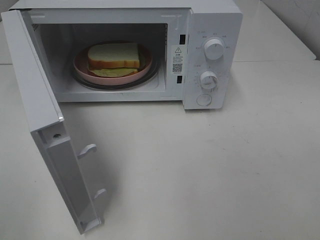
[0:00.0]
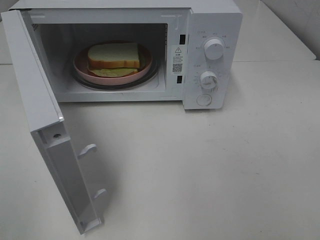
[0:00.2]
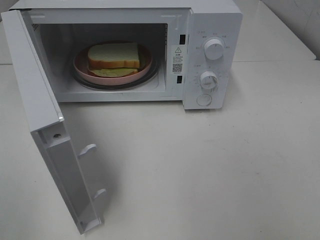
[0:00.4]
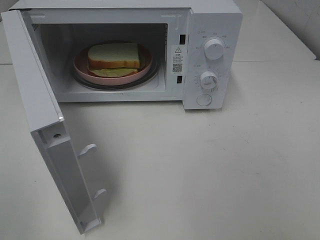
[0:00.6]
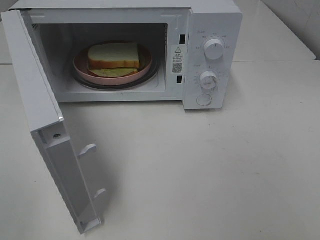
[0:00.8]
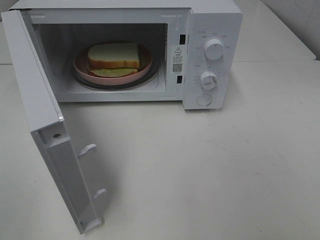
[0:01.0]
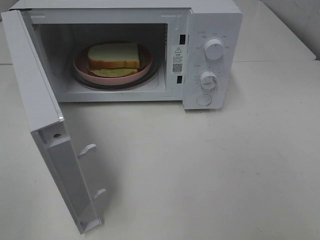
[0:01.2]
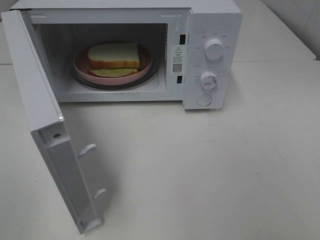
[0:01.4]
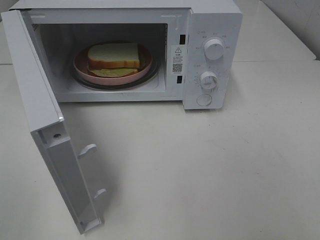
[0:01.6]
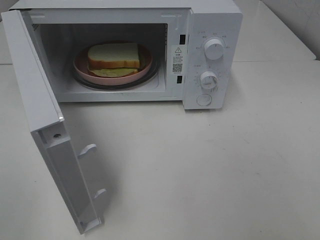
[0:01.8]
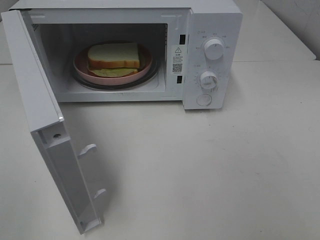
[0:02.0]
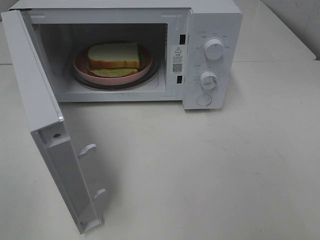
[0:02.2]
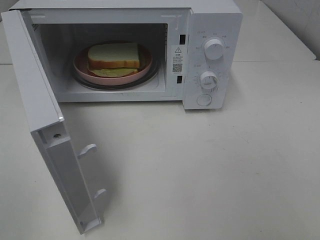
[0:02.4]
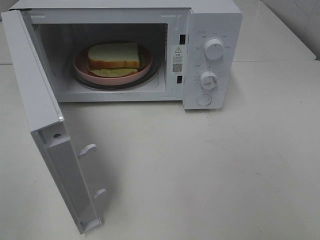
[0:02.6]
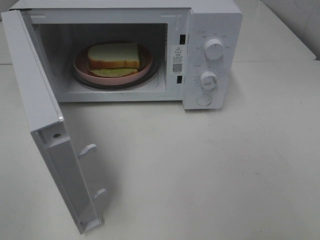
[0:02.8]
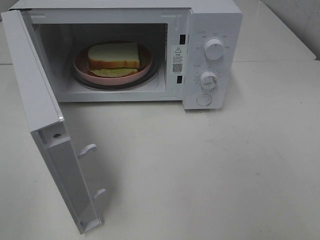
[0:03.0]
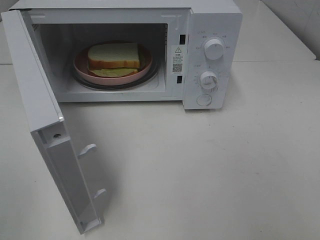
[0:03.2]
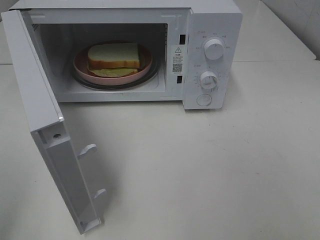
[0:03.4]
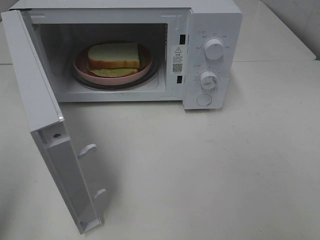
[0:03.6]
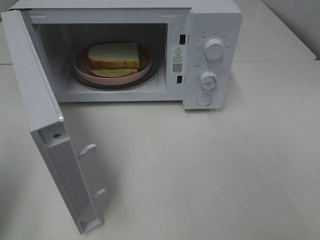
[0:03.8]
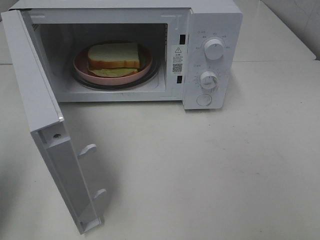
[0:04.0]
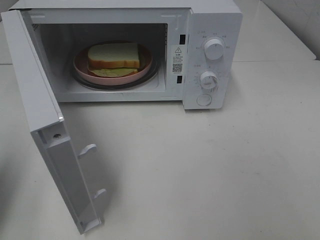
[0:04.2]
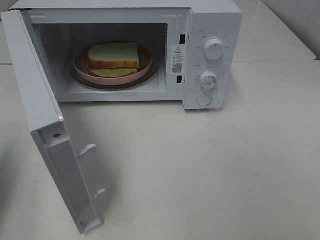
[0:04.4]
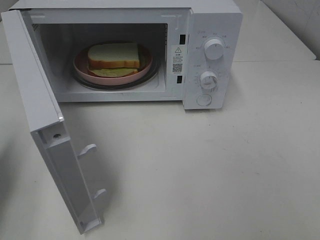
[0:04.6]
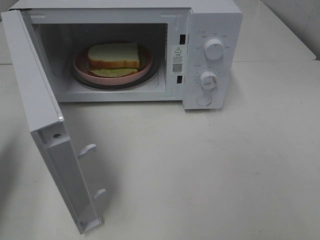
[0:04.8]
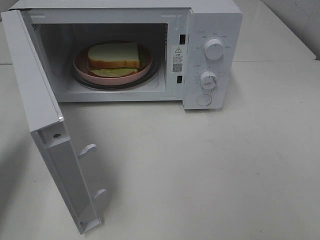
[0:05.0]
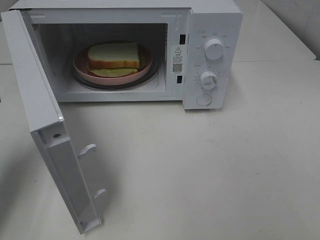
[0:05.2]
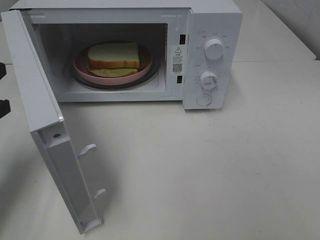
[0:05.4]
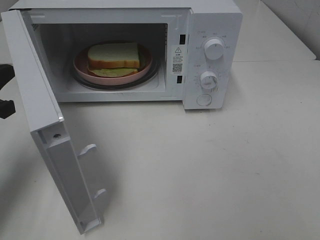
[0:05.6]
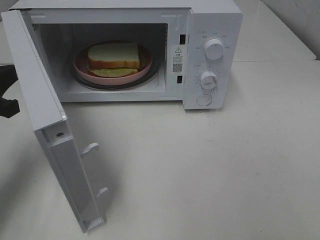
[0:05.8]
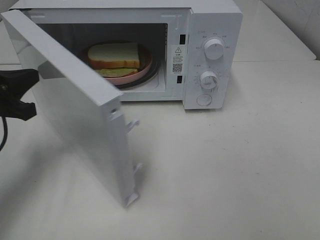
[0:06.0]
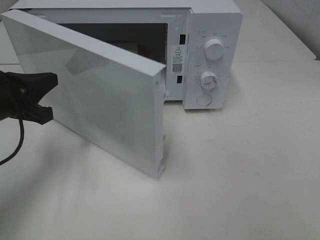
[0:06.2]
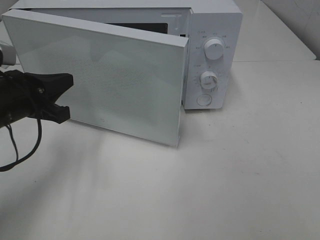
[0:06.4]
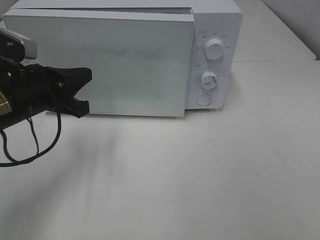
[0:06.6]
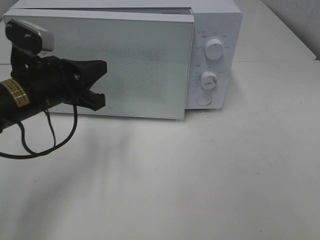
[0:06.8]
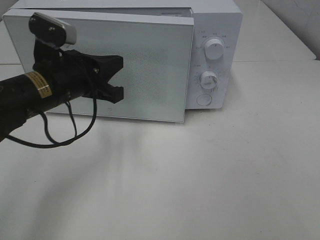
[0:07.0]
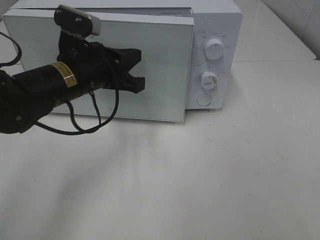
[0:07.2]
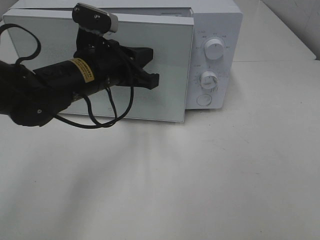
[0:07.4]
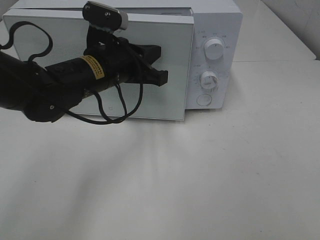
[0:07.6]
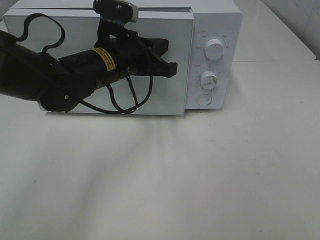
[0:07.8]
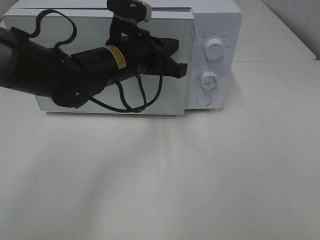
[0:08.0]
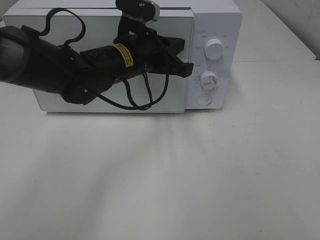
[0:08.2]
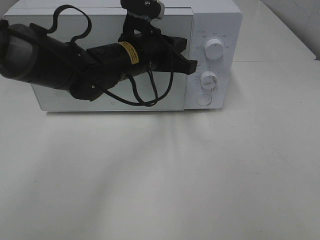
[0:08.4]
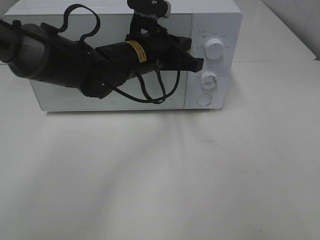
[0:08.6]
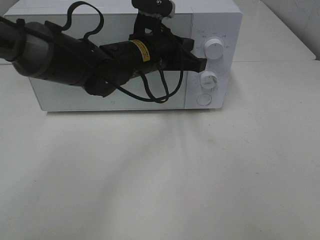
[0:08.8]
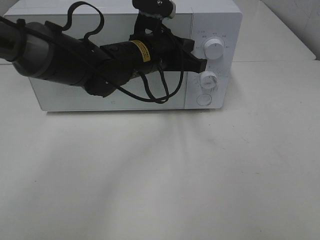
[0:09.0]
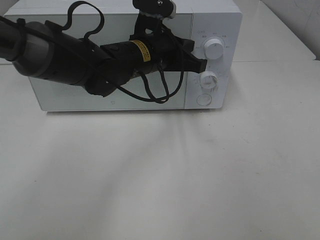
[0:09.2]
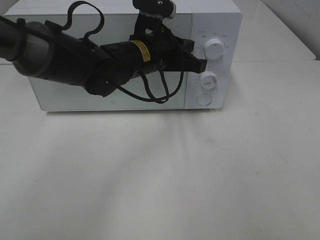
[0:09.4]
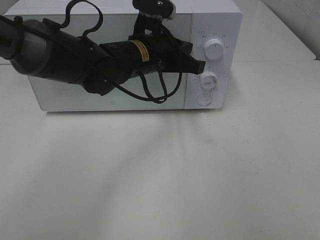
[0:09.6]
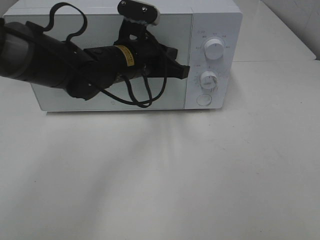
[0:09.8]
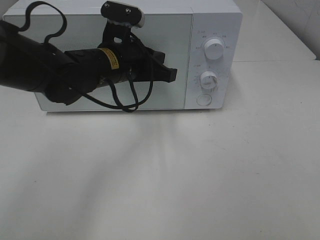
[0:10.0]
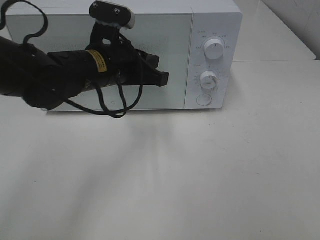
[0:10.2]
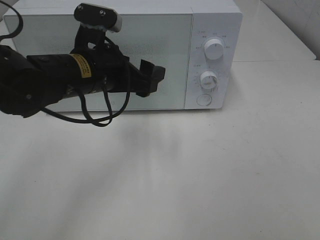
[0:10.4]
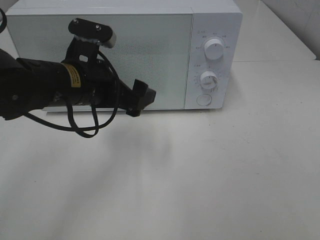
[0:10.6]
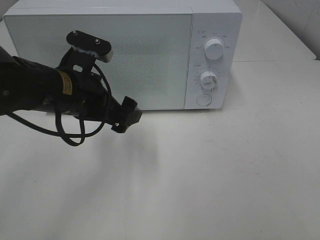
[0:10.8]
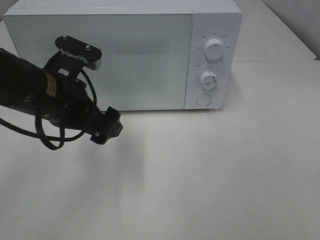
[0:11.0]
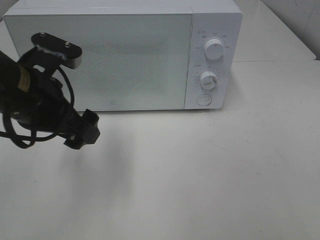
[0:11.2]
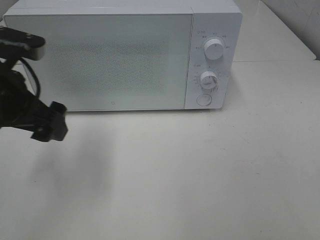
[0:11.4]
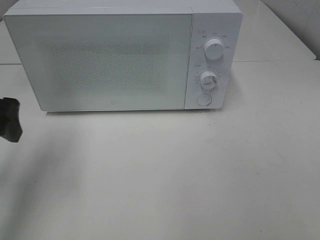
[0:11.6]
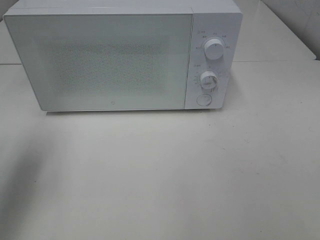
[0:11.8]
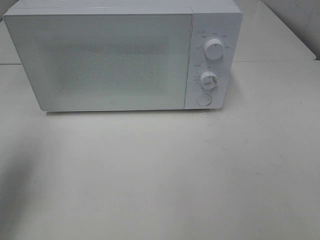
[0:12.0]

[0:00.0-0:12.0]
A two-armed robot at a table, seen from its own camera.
Task of the whole recording: Heat Sandwich.
Step, 0:00.0 to 0:10.4: Left hand: close the microwave door.
0:01.6 to 0:03.0: Neither gripper changes place.
0:03.0 to 0:04.4: The left gripper travels forward by approximately 20 cm, and closes its fingers.
0:04.4 to 0:06.0: The left gripper shifts some 10 cm forward, to the right and downward.
0:06.0 to 0:07.6: The left gripper moves to the right, approximately 20 cm.
0:07.6 to 0:09.0: The left gripper travels to the right by approximately 5 cm.
0:09.0 to 0:10.4: The left gripper moves to the left and backward, approximately 10 cm, and opens.
0:10.4 to 0:12.0: The left gripper shifts approximately 20 cm to the left and backward.

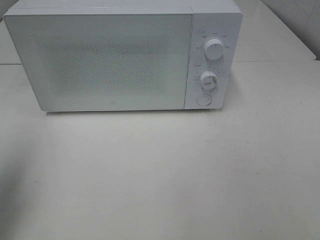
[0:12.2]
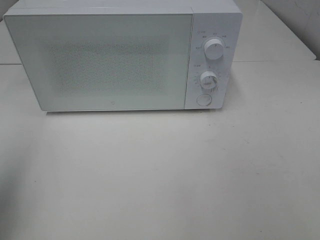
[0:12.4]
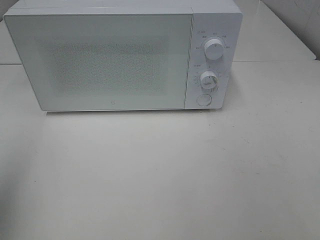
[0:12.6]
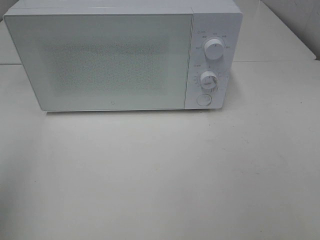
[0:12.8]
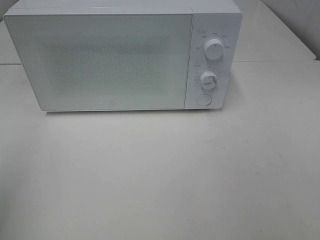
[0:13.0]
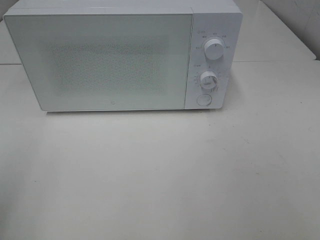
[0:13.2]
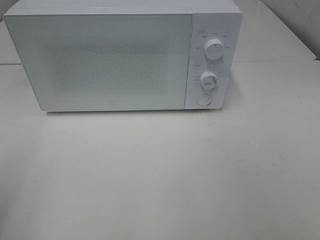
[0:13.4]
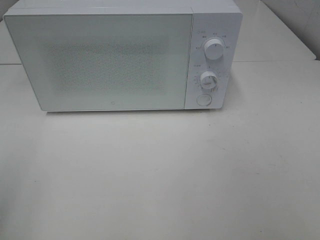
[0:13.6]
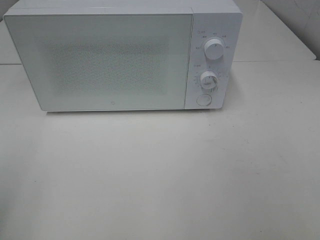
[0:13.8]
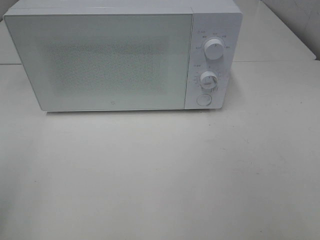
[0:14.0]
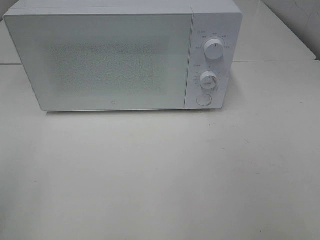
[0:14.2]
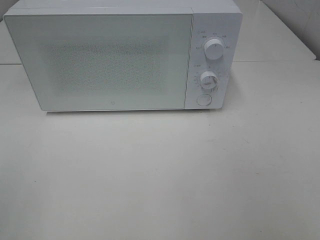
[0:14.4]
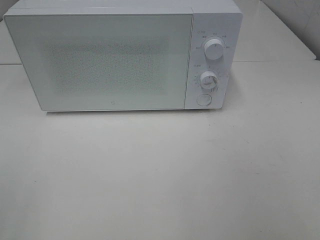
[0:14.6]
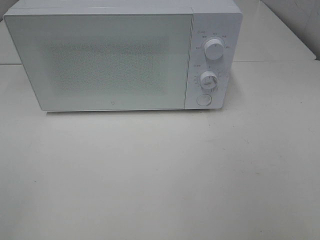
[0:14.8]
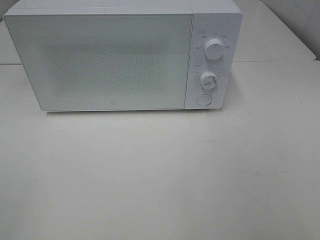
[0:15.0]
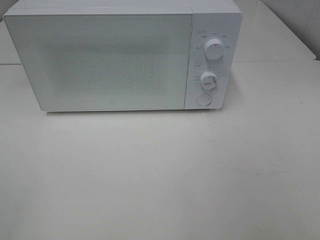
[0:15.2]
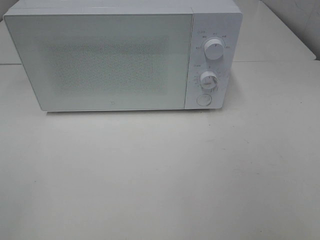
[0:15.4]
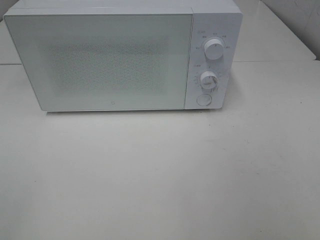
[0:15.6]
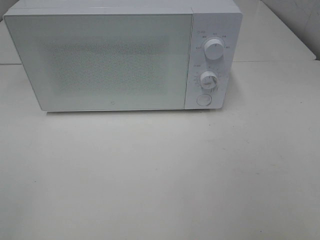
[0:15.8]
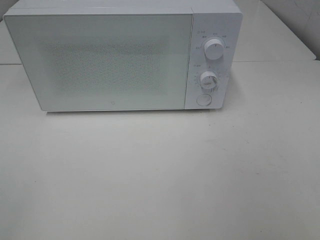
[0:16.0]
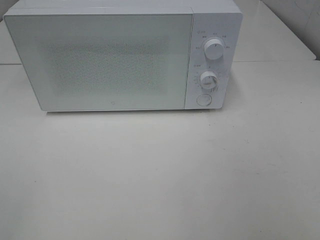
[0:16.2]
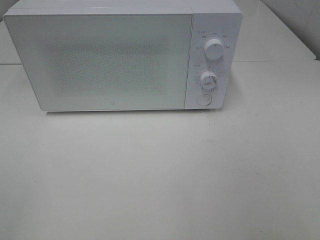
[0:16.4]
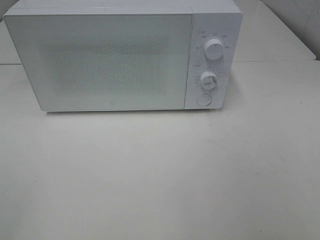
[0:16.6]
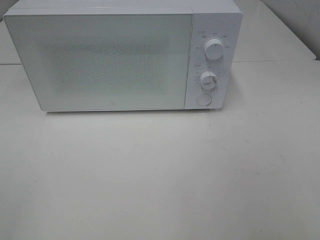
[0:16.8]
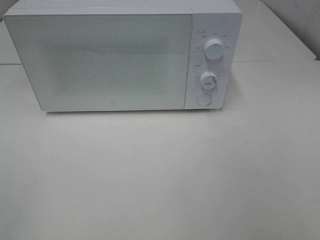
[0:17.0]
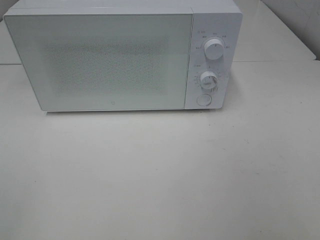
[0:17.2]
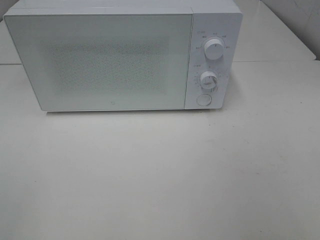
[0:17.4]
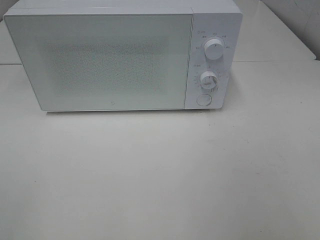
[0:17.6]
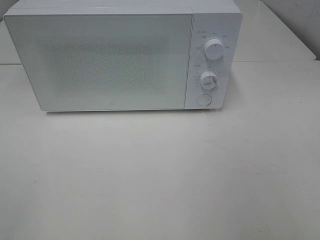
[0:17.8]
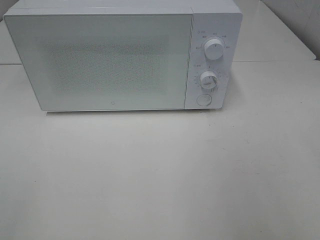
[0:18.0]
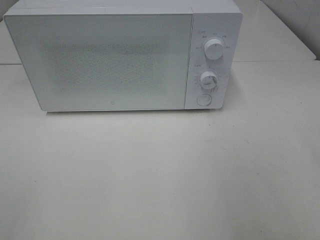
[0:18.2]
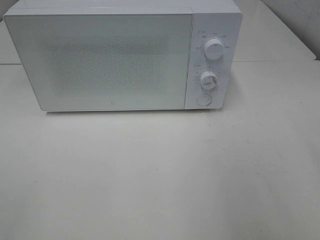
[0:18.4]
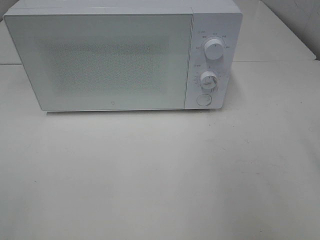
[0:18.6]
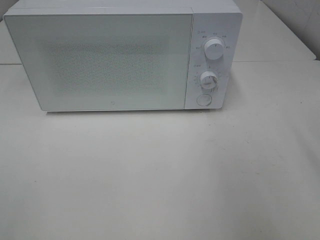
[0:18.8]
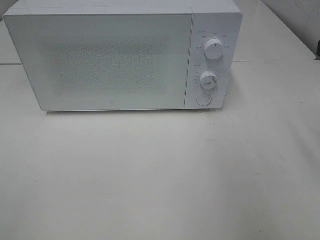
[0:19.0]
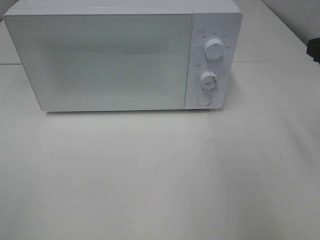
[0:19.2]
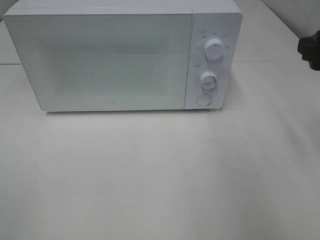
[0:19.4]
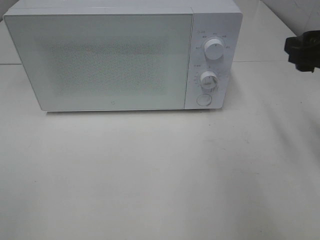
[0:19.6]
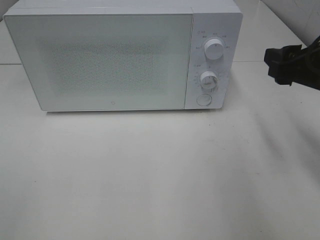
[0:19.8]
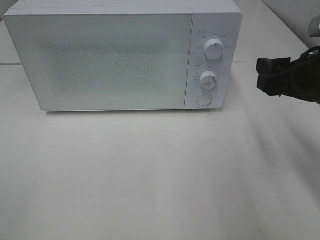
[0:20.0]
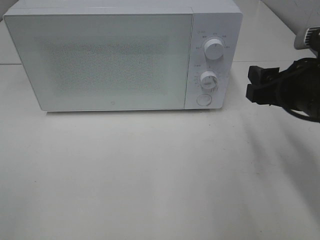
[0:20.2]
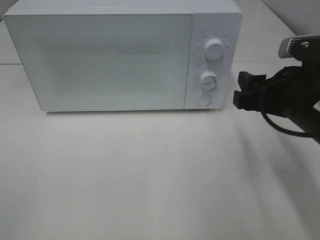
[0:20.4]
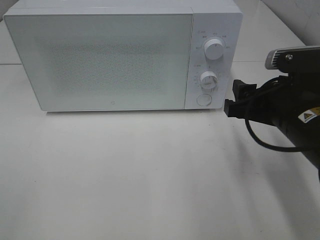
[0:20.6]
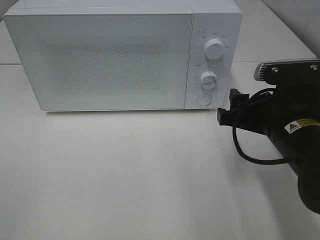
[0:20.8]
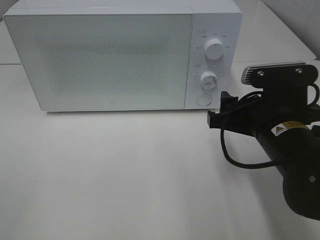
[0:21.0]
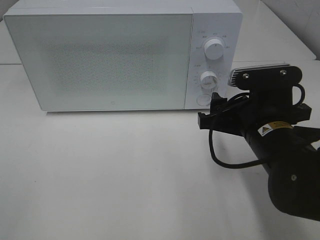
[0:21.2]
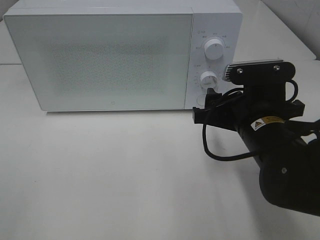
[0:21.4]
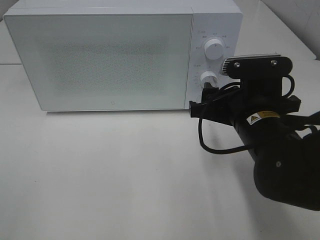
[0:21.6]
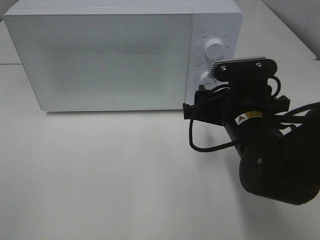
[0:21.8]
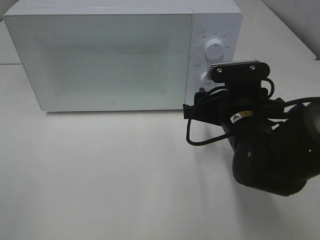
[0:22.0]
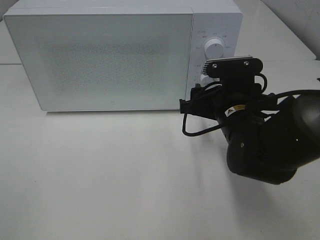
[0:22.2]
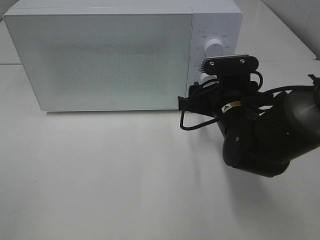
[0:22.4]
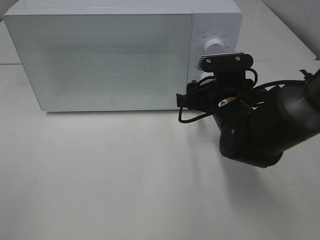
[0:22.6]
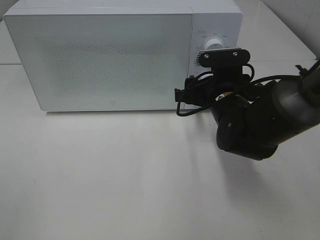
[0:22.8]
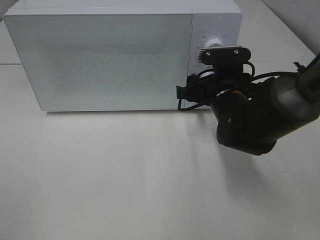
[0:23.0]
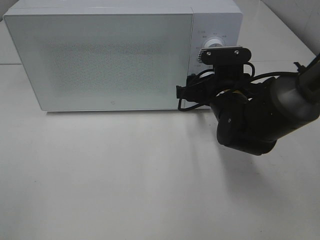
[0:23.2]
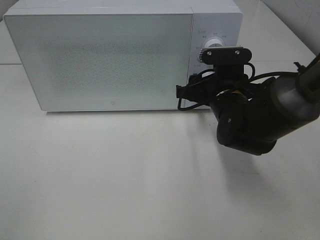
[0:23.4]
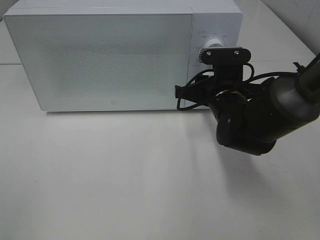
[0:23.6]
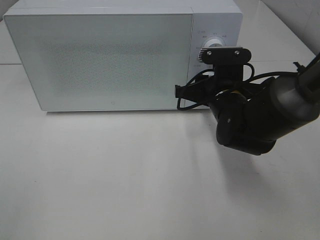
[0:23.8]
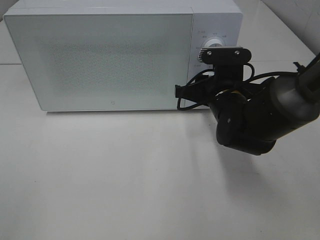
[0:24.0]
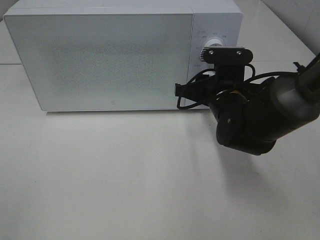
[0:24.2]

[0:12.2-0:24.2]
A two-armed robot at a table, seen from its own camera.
Task of the whole recording: Heat Sandwich.
0:12.2 to 0:13.8: The left gripper travels backward by approximately 10 cm.
0:15.2 to 0:16.6: The two grippers keep their place.
0:18.2 to 0:19.8: The right gripper is displaced forward and downward by about 15 cm.
0:19.8 to 0:21.2: The right gripper heads to the left and downward, covering roughly 10 cm.
0:21.2 to 0:22.6: The right gripper moves forward, about 10 cm.
0:22.6 to 0:24.2: The right gripper closes its fingers.
